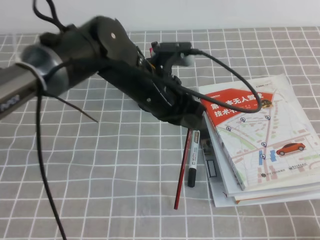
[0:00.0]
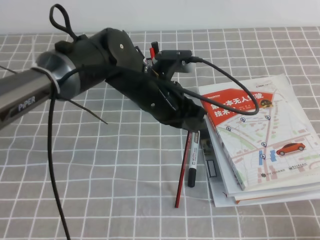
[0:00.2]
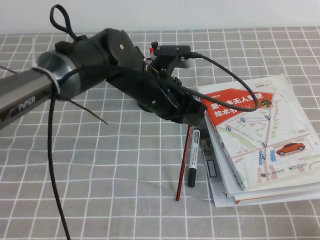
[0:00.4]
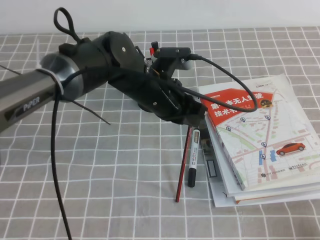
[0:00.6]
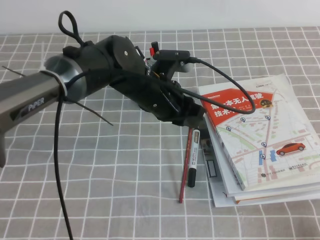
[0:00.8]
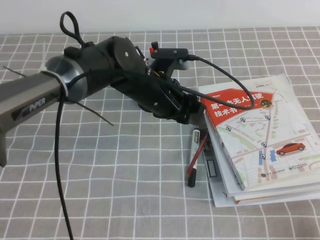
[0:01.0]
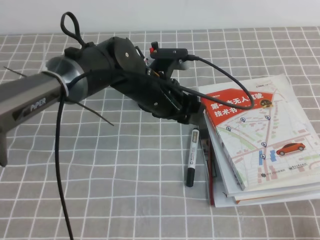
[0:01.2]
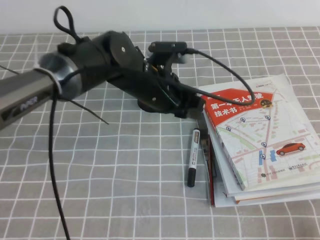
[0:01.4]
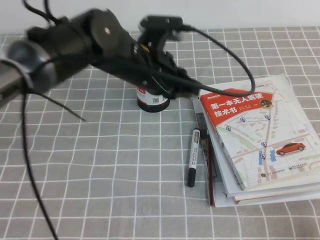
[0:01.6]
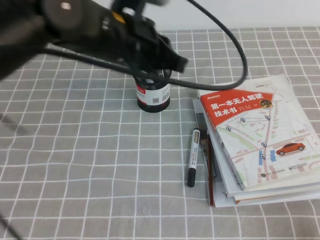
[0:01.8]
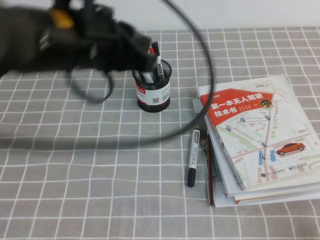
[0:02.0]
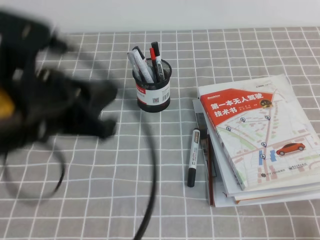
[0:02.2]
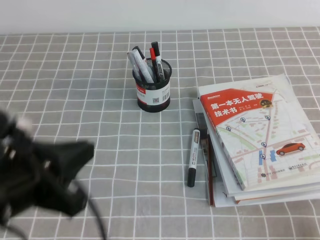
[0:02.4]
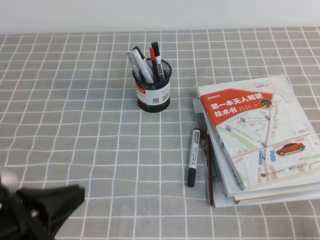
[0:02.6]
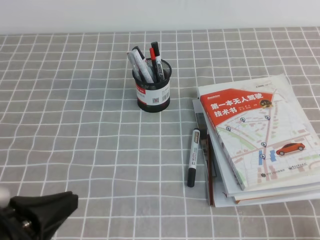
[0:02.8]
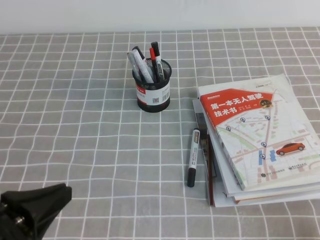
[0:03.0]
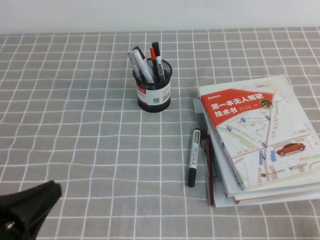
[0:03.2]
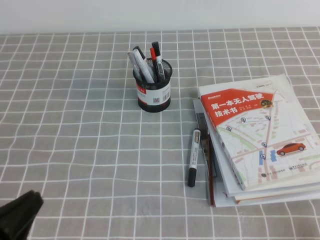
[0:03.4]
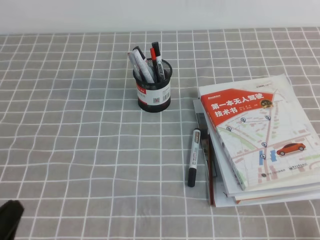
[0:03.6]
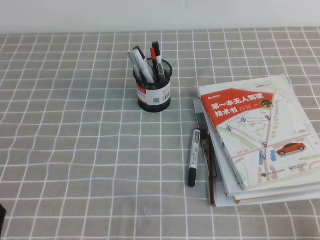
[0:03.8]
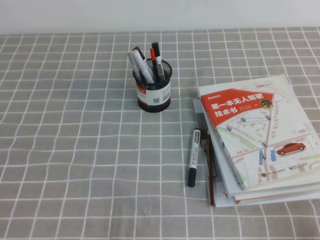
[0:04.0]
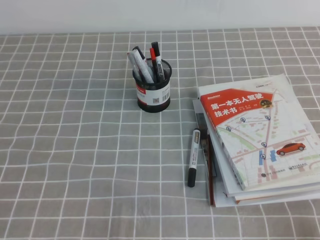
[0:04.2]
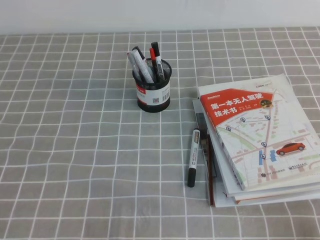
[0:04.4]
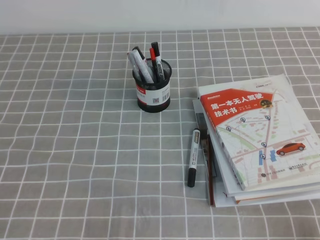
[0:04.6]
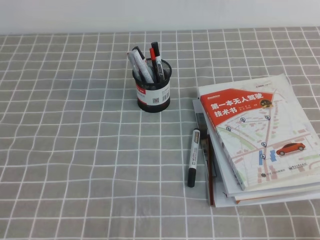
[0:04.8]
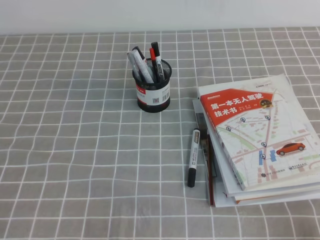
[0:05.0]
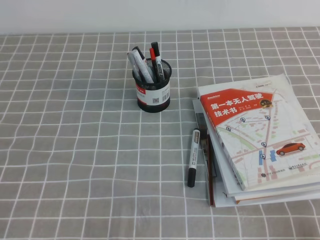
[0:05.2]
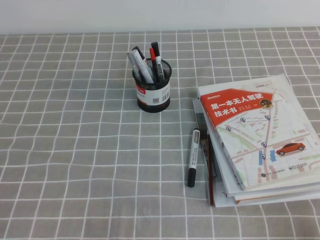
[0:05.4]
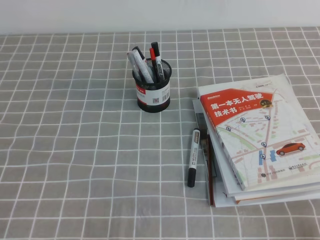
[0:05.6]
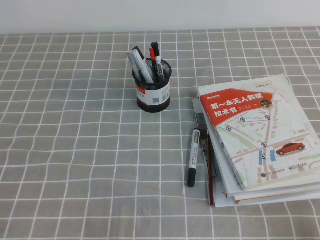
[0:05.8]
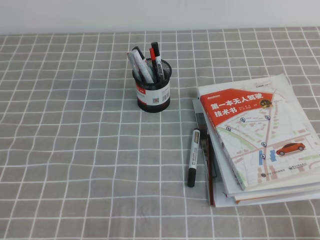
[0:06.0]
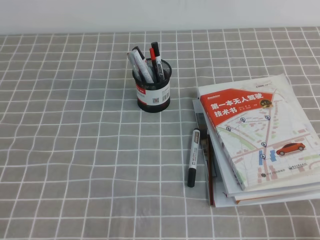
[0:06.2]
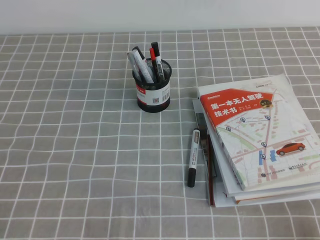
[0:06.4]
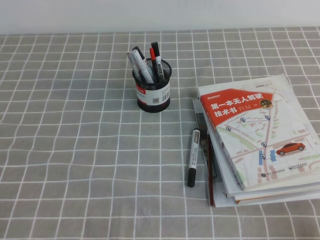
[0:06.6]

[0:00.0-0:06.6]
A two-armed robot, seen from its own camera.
Step, 0:00.0 to 0:06.6: Pick up the pen from the pen holder.
0:00.0 to 0:01.6: The grippers move only a little.
0:01.6 to 0:03.2: The left gripper moves backward and to the left, some 30 cm.
0:03.2 to 0:05.0: The left gripper moves downward and to the left, roughly 10 cm.
0:05.0 to 0:06.6: Neither gripper changes place.

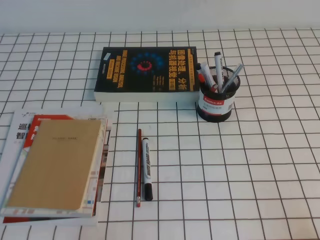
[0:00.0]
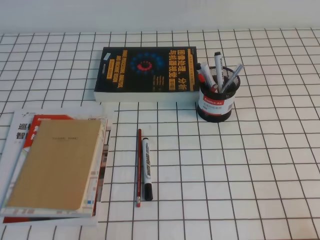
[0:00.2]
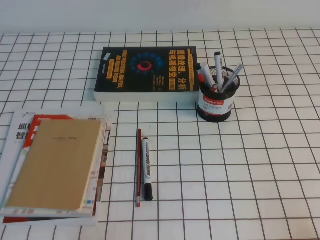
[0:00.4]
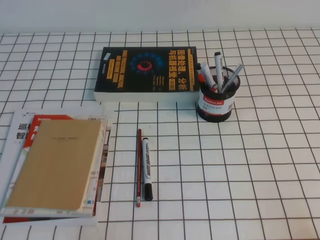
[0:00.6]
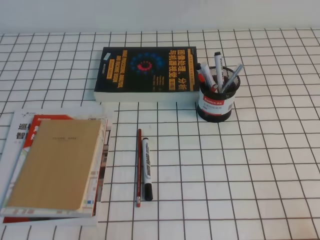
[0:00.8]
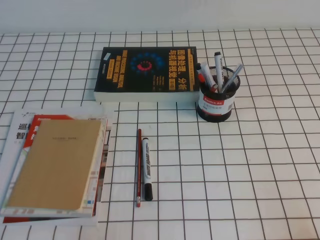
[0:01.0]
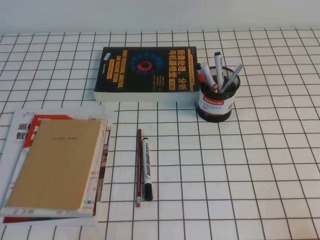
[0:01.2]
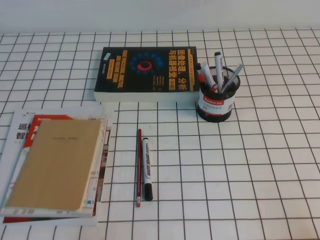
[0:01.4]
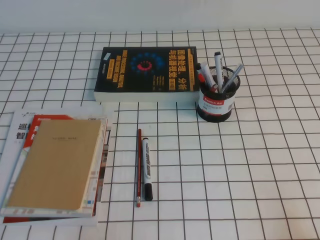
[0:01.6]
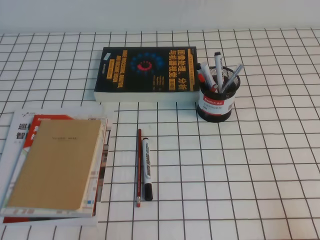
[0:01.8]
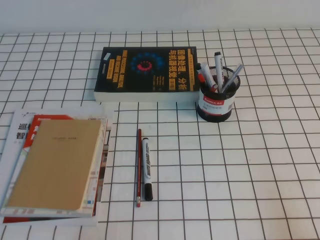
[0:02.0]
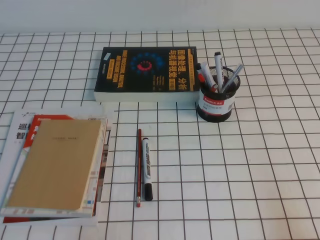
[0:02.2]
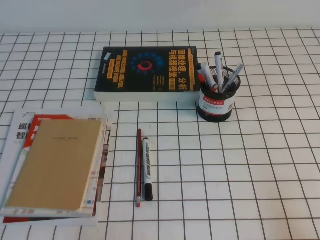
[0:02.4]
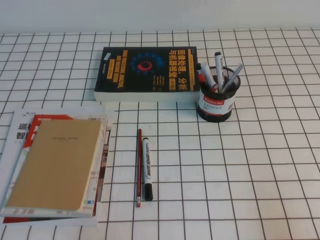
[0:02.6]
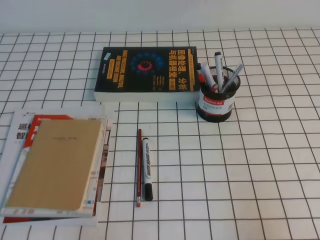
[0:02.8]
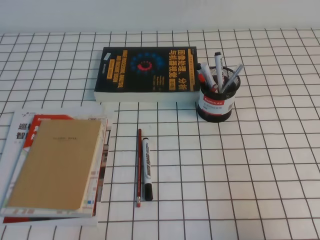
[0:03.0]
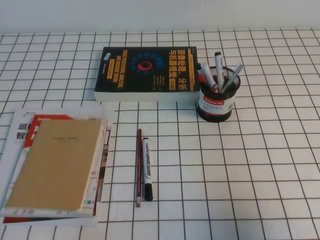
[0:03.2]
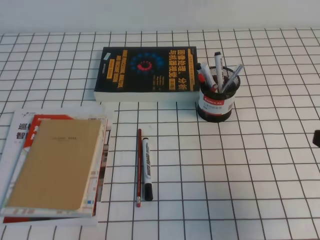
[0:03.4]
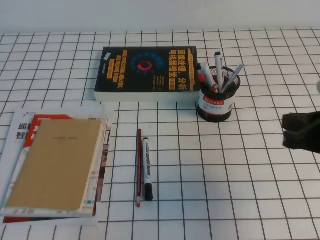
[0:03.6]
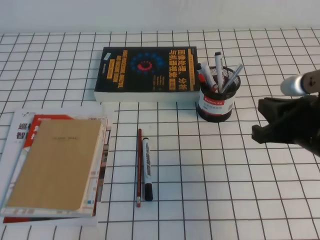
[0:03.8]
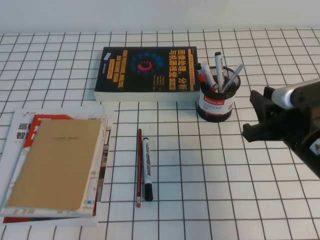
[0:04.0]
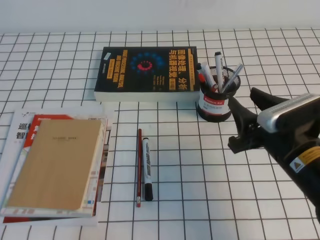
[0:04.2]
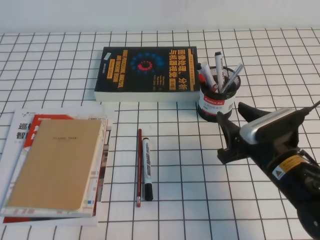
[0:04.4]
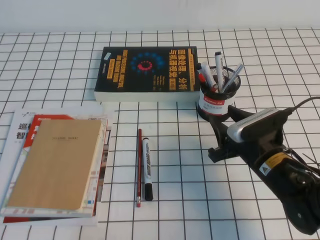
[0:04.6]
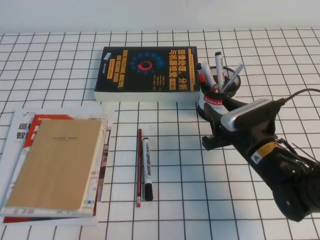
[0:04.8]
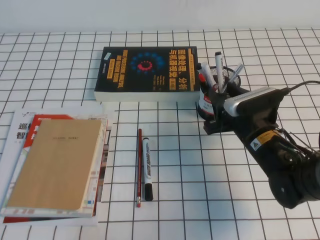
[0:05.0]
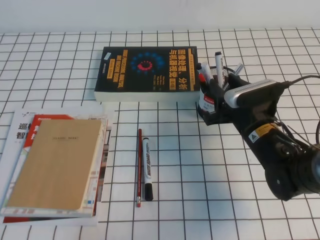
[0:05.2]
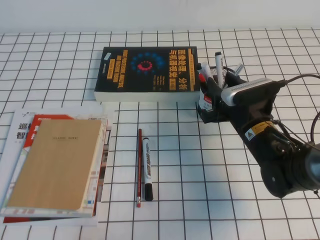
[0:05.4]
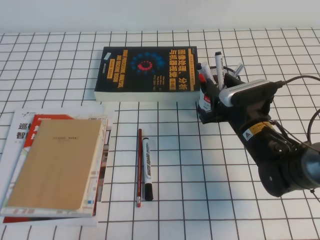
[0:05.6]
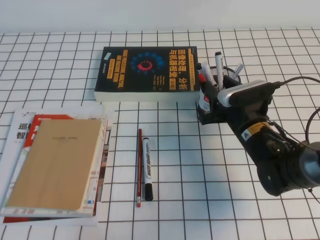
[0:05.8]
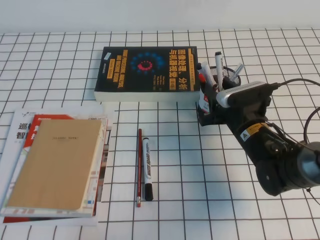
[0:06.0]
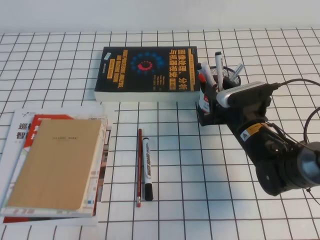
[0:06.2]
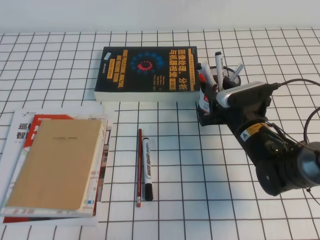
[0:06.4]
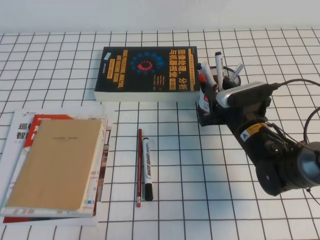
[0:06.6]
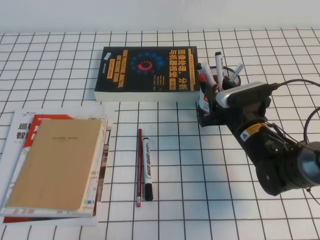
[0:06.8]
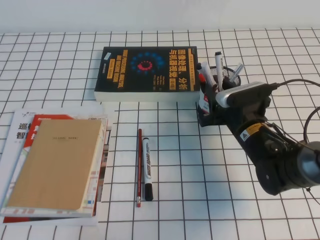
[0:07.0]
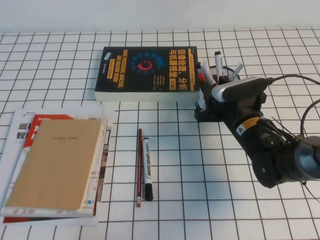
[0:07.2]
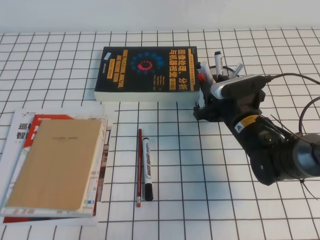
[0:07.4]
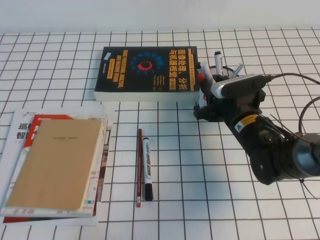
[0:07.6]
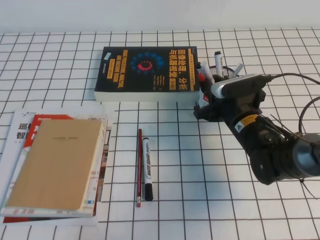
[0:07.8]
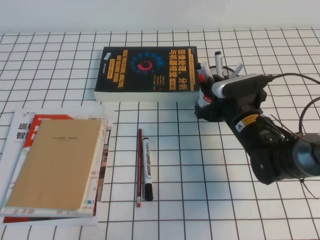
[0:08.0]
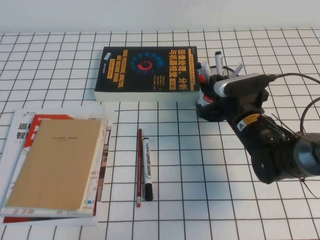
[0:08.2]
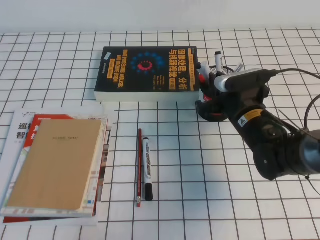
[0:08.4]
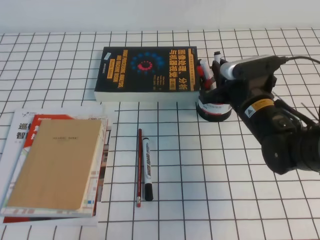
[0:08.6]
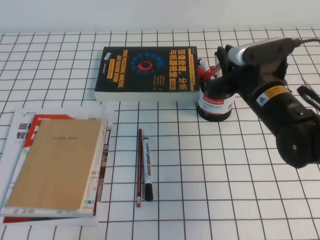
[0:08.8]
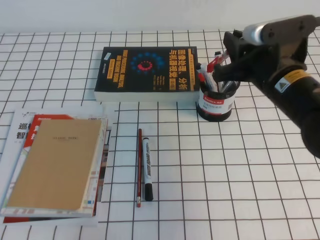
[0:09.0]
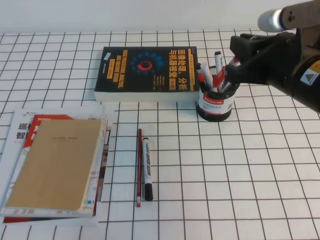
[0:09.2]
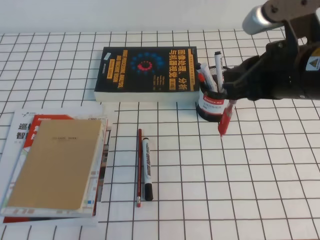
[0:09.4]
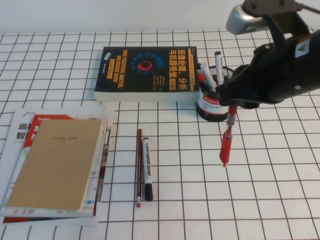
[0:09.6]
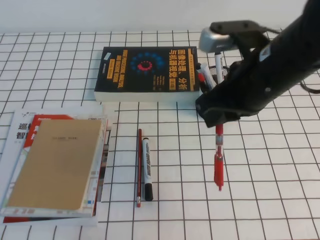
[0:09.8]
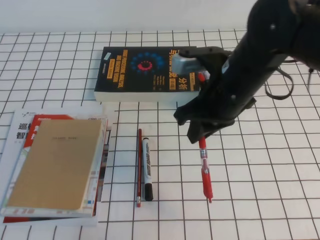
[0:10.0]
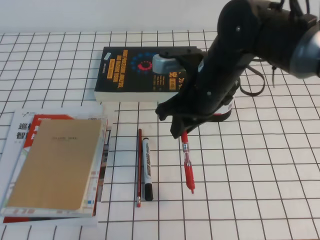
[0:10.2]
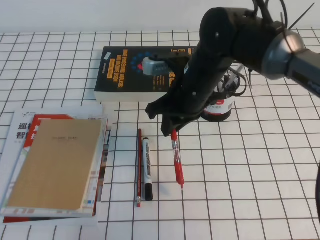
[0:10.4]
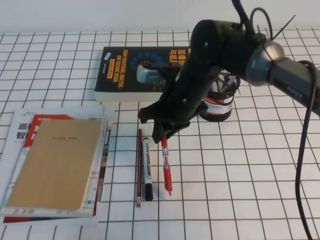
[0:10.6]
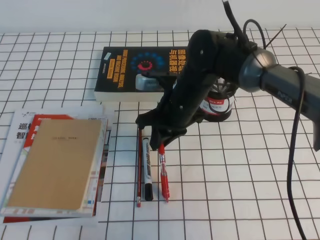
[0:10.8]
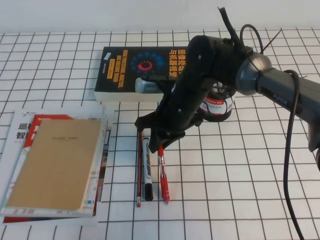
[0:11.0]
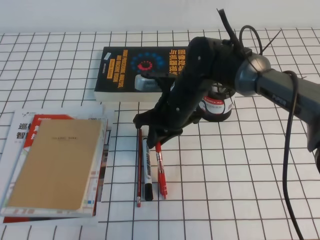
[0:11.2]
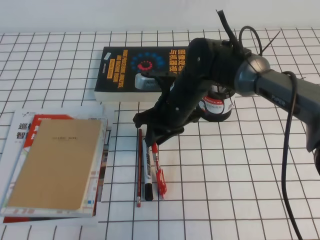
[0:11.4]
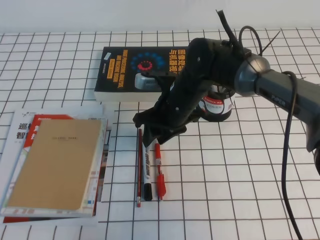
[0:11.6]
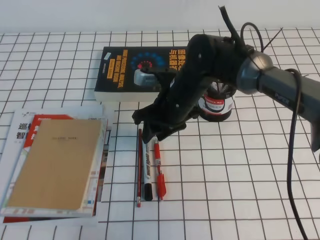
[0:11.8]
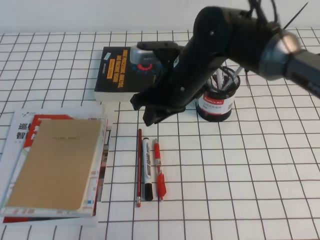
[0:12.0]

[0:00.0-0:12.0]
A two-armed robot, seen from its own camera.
0:01.6 to 0:03.0: The right gripper travels upward by roughly 10 cm.
0:03.0 to 0:04.4: The right gripper heads forward, to the left and downward, covering some 20 cm, and opens.
0:04.4 to 0:06.0: The right gripper heads forward, covering approximately 10 cm.
0:06.0 to 0:07.6: The grippers make only small movements.
0:07.6 to 0:09.0: The right gripper is displaced upward by some 15 cm, and closes.
0:09.0 to 0:10.4: The right gripper moves to the left, about 10 cm.

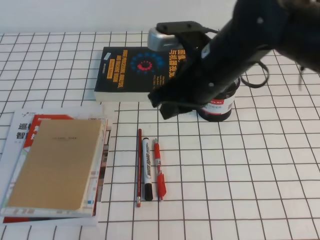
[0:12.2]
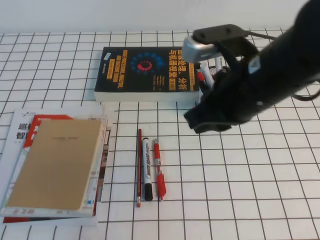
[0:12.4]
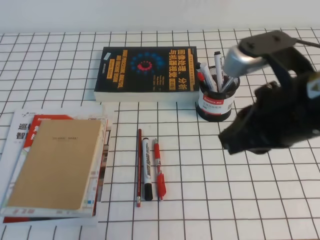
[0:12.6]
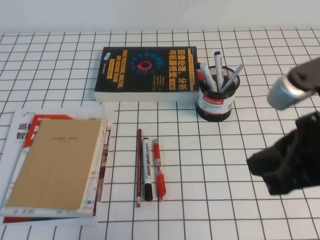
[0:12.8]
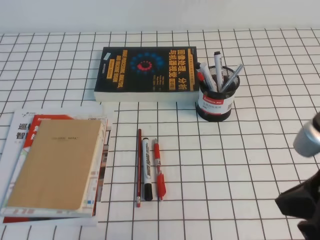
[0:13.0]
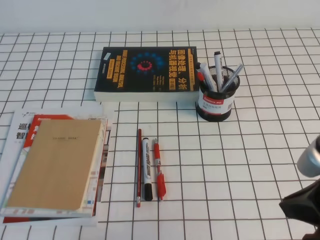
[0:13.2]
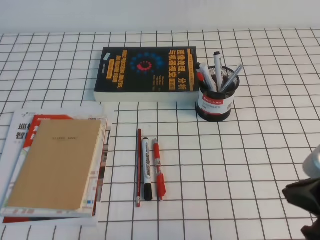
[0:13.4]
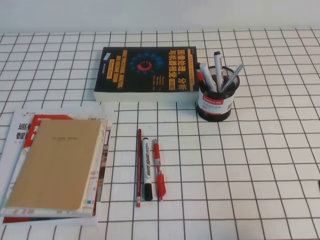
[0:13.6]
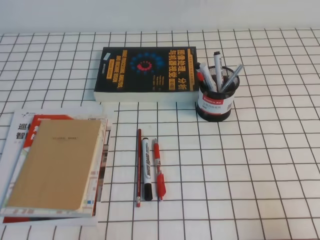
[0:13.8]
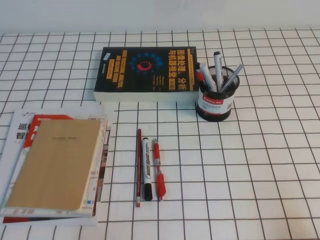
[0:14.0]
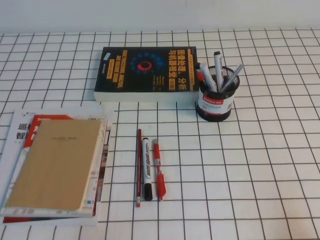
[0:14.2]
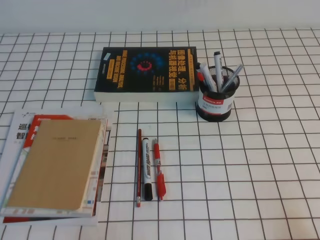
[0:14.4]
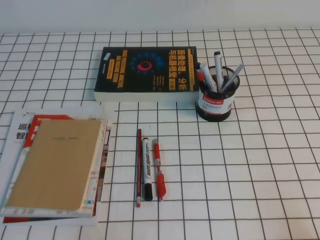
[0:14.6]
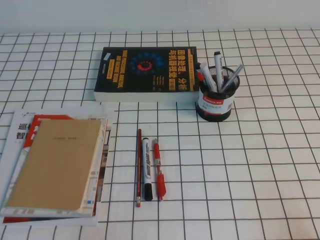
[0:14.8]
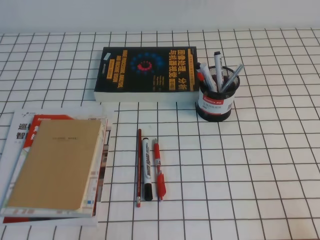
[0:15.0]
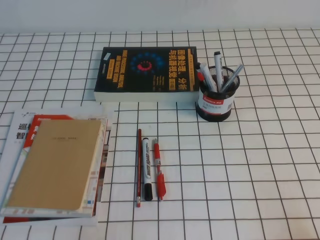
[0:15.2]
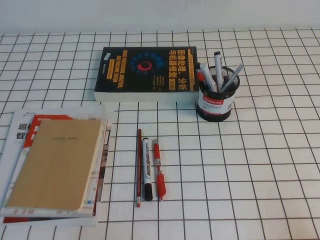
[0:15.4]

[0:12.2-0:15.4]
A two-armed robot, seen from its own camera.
Step, 0:12.2 to 0:15.4: Pick up the pen from the pen holder.
0:12.2 to 0:13.8: The right gripper heads to the right and backward, covering approximately 30 cm.
